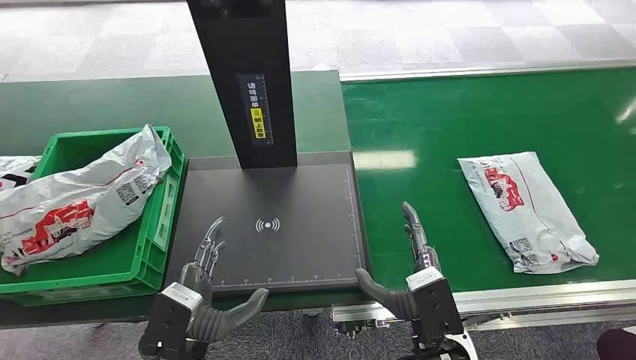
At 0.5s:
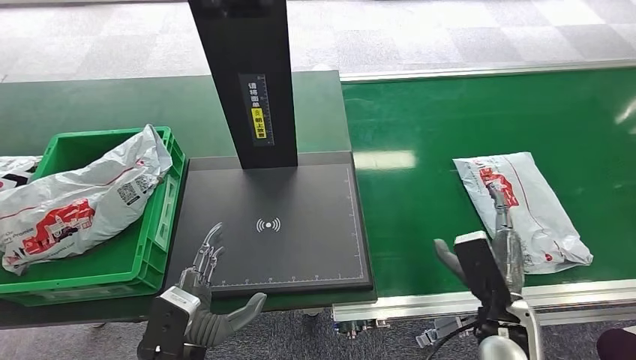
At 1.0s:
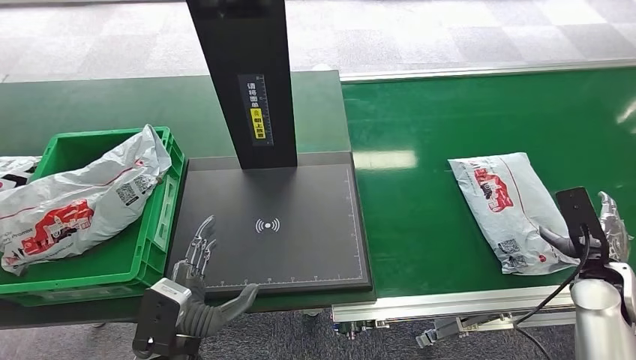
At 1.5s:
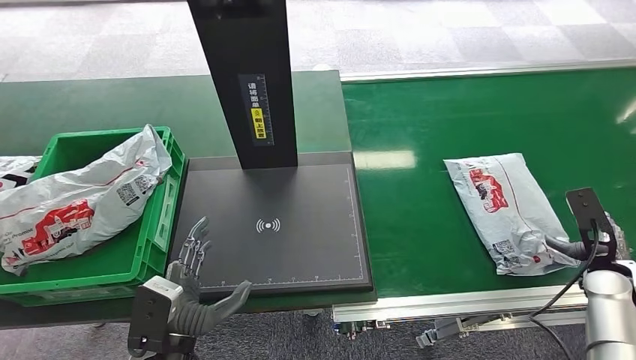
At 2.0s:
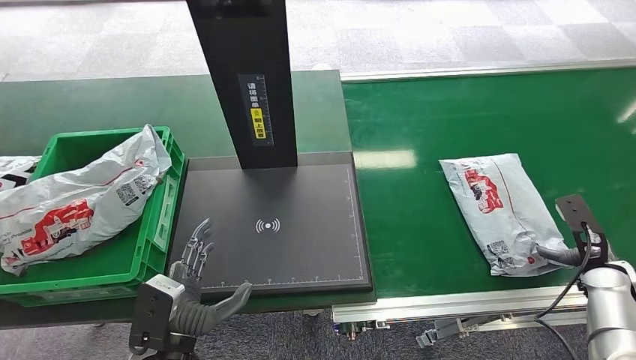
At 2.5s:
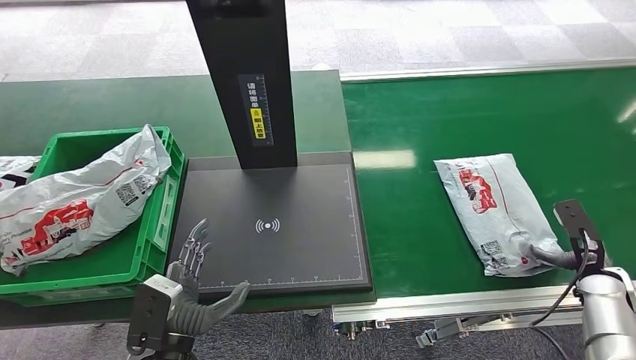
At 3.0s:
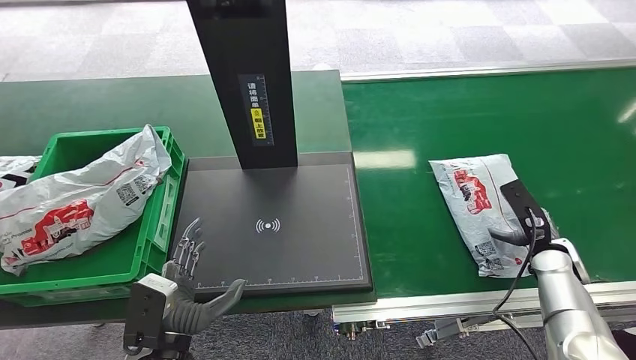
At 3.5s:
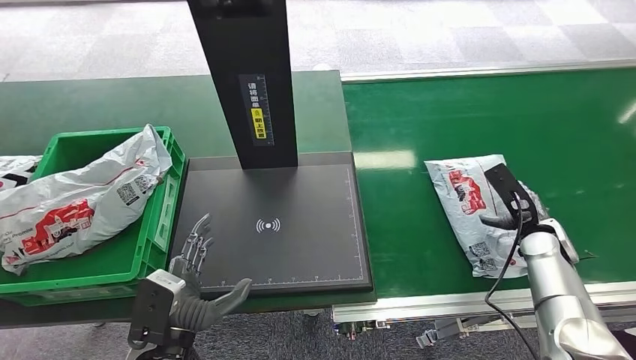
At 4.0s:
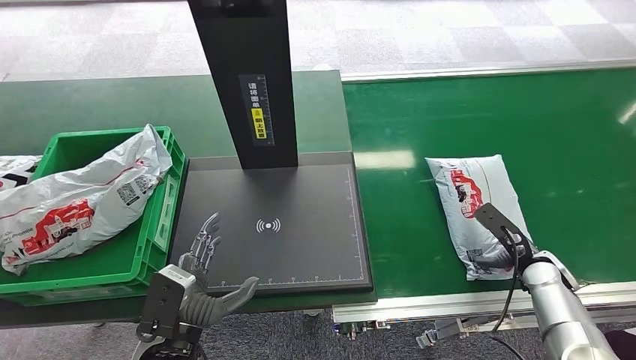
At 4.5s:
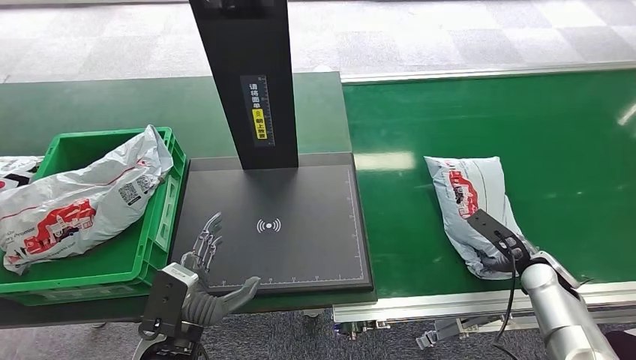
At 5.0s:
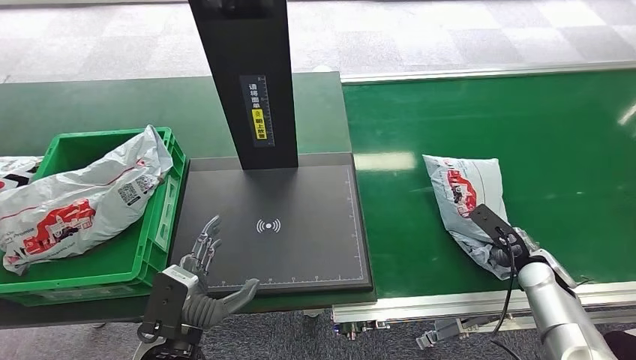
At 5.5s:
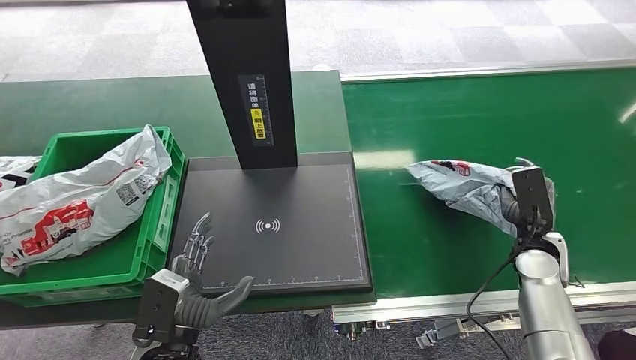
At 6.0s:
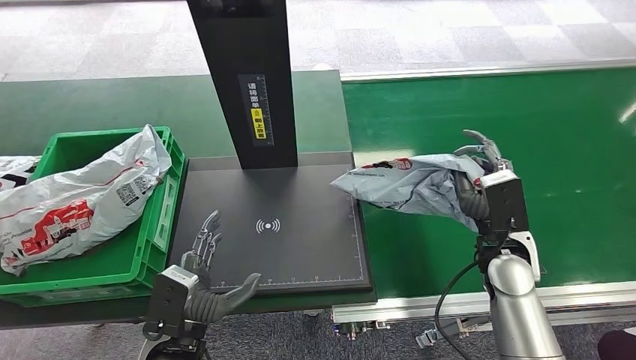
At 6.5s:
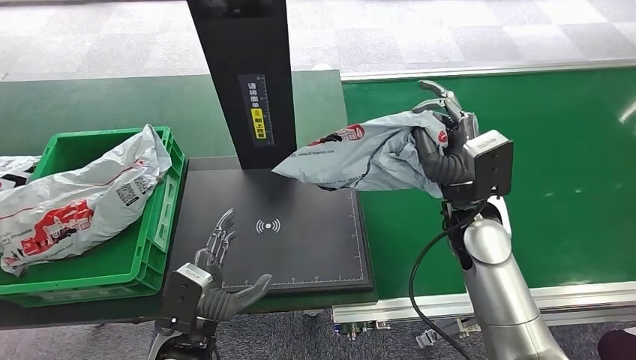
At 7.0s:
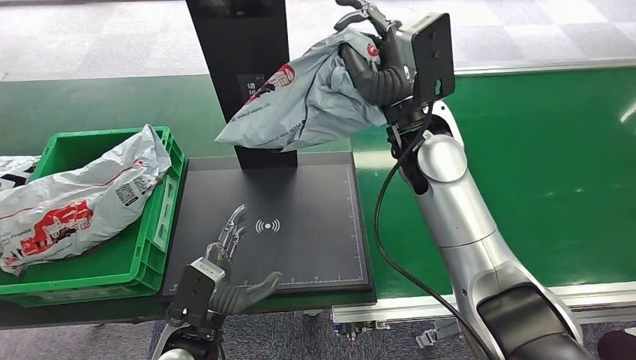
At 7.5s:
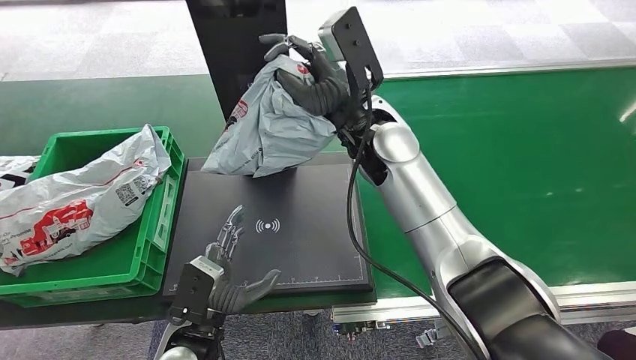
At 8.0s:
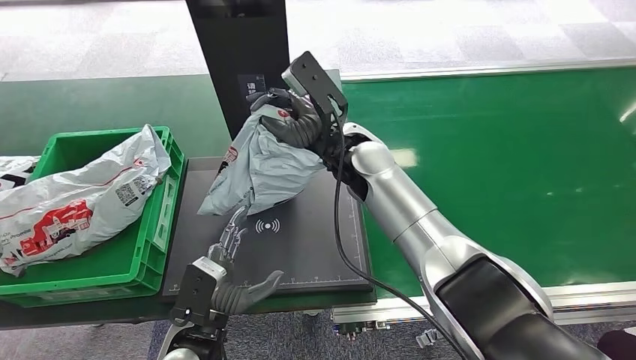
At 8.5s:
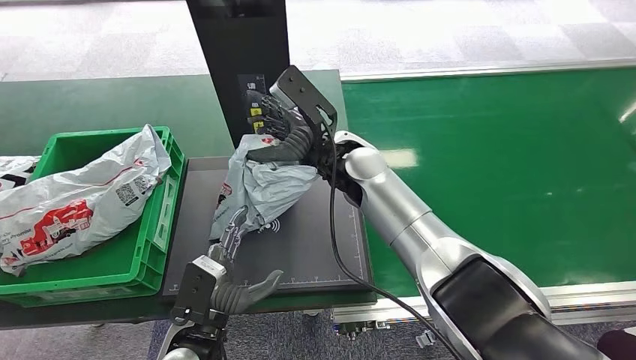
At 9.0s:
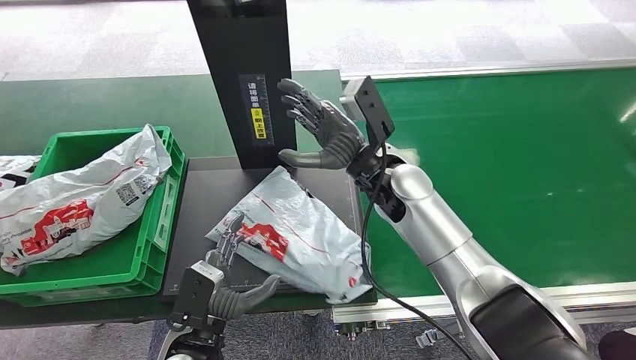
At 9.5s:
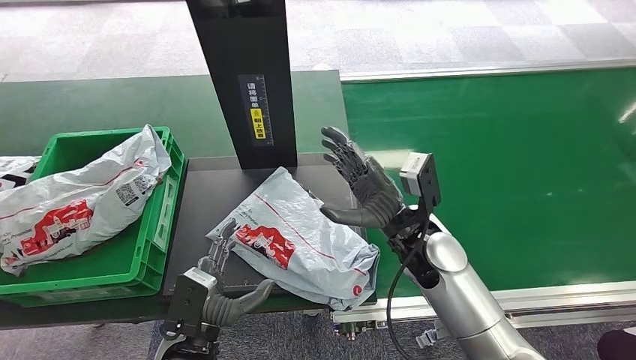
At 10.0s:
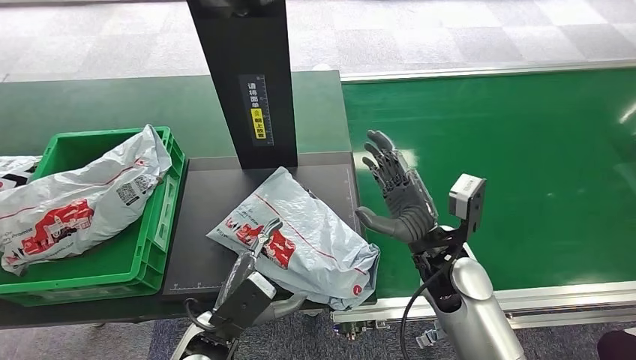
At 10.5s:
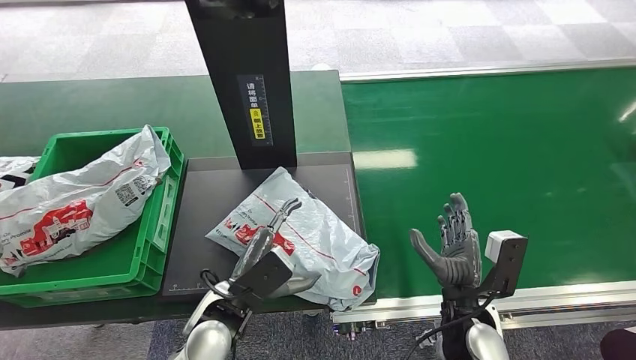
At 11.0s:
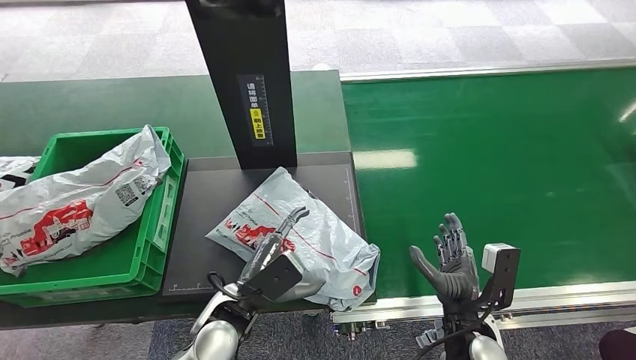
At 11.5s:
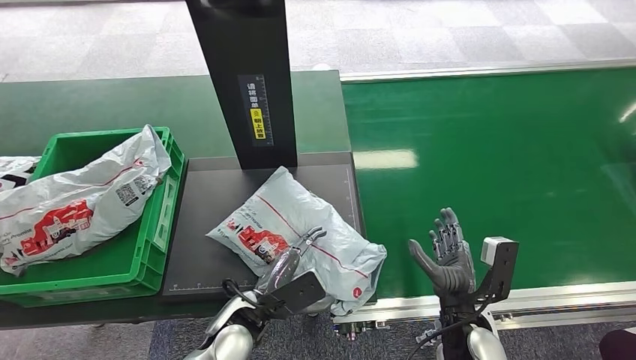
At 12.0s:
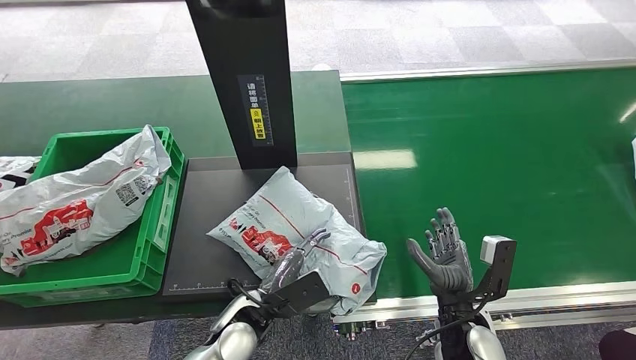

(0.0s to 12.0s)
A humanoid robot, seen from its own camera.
Step, 0.0s - 6.0s: Pick up the package from the conveyor belt.
Step, 6.5s - 9.0s: Place the package onto the inbound machine.
2.0s - 4.0s: The right hand moves to the left, about 10 cm.
4.0s - 6.0s: The right hand heads to the left and upward, covering approximately 15 cm.
10.0s - 12.0s: The left hand changes place by some 5 cm. The right hand shifts about 15 cm downward and backward.

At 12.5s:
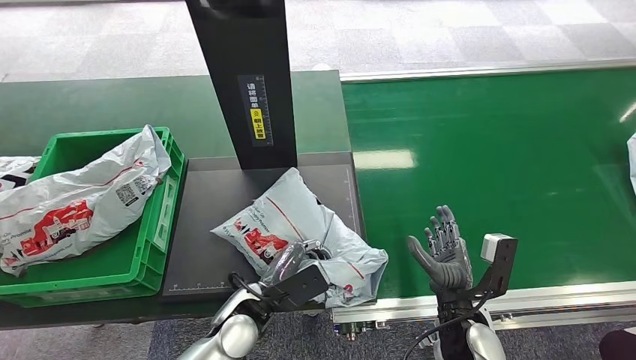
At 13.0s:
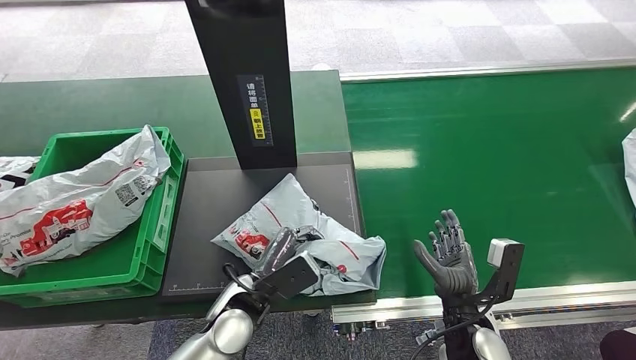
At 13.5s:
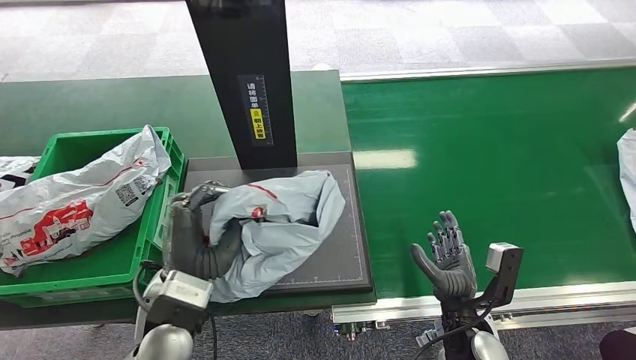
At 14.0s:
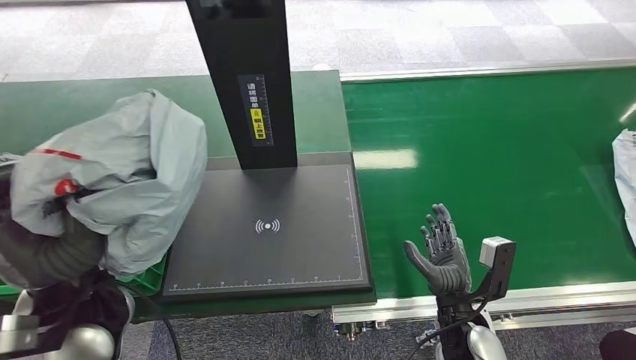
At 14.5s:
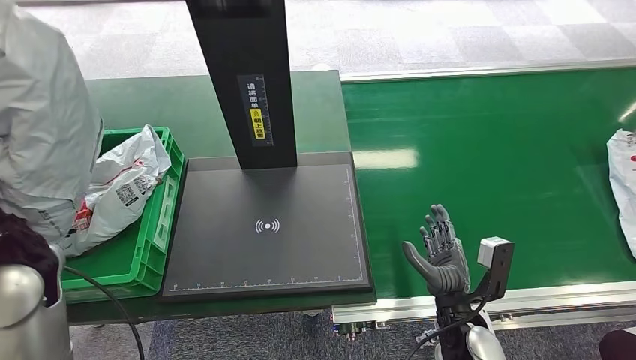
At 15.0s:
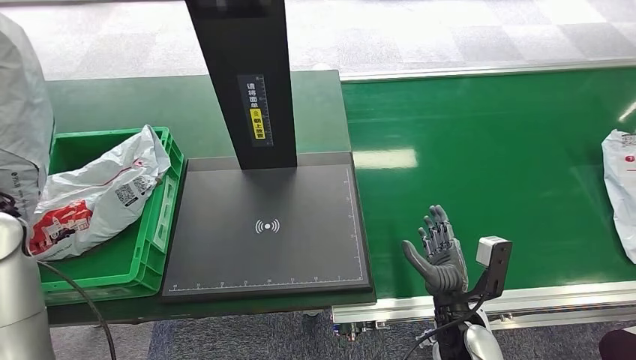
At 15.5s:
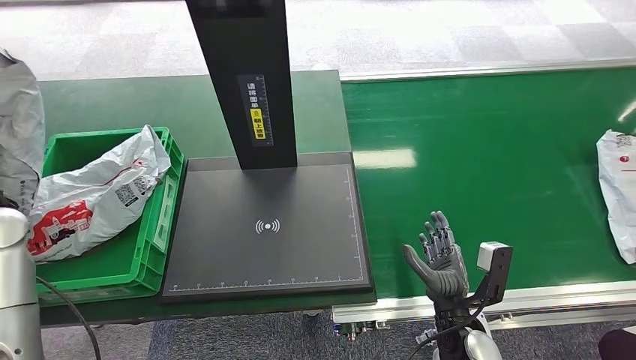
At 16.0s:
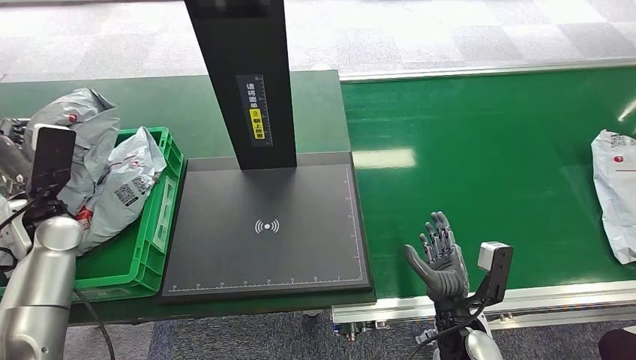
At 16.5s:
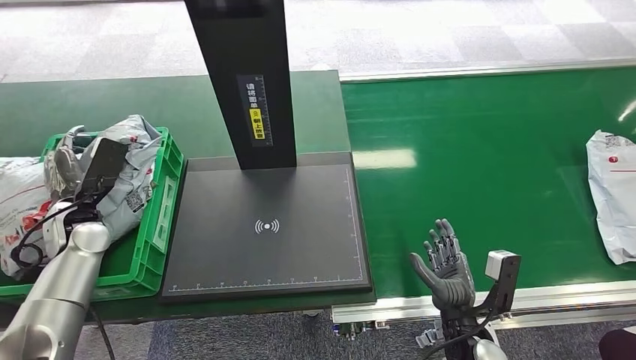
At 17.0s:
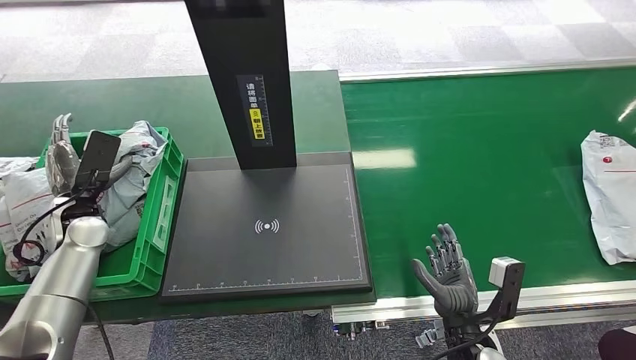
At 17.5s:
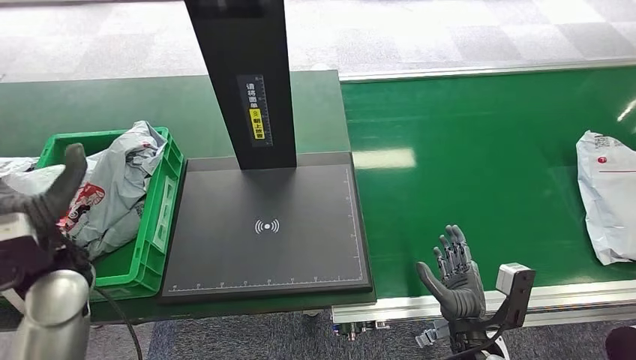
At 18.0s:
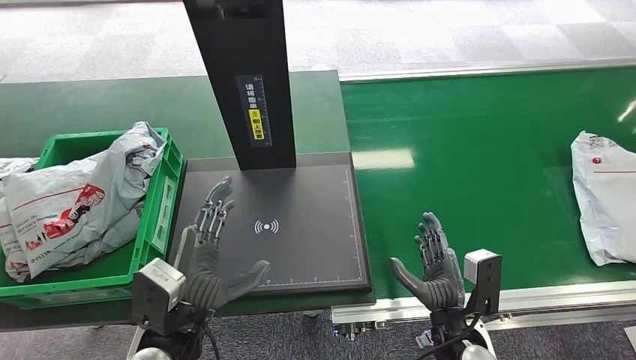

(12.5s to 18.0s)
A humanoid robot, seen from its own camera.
Step, 14.0s - 18.0s: Place the package into the parcel locker.
12.5s - 14.5s: The left hand moves upward and to the left, approximately 30 cm.
14.5s - 16.0s: The left hand is displaced downward, to the left and forward by roughly 20 cm.
16.0s - 18.0s: The left hand shifts roughly 30 cm to the right and backward.
